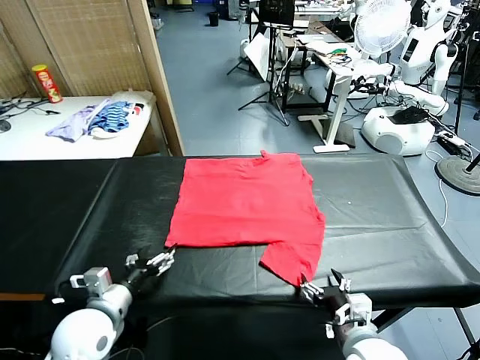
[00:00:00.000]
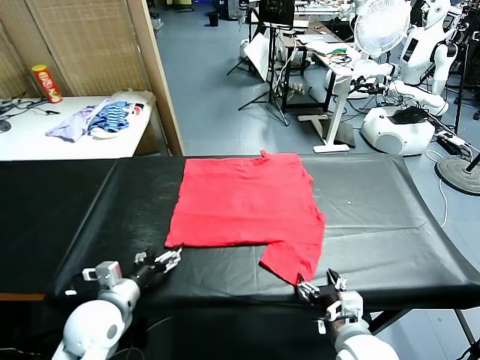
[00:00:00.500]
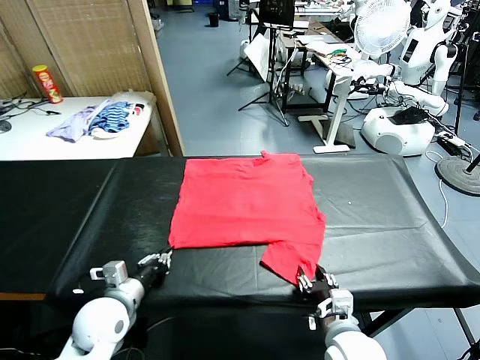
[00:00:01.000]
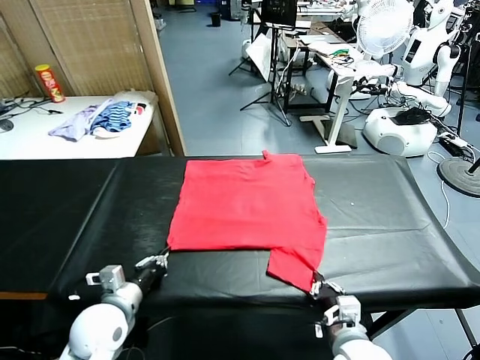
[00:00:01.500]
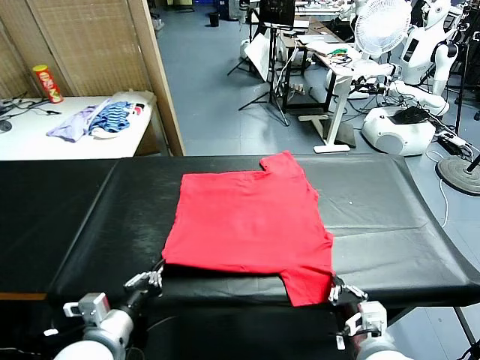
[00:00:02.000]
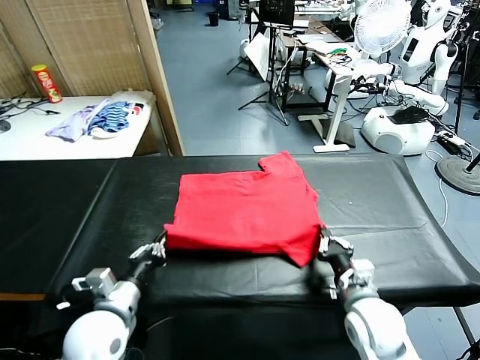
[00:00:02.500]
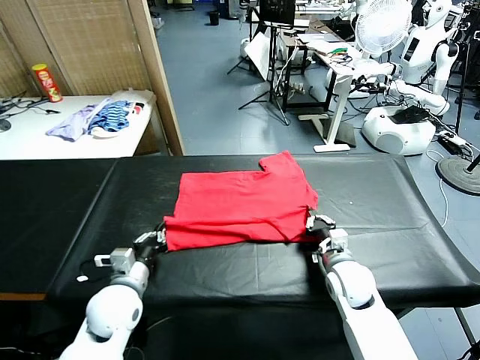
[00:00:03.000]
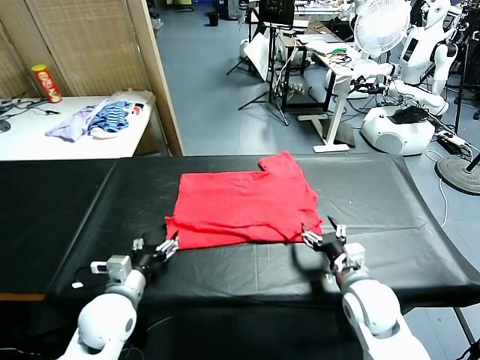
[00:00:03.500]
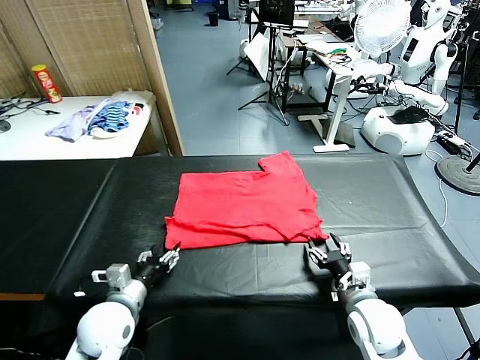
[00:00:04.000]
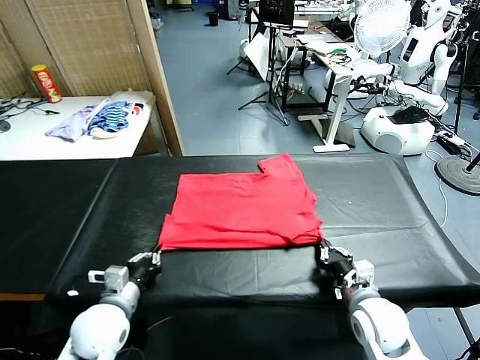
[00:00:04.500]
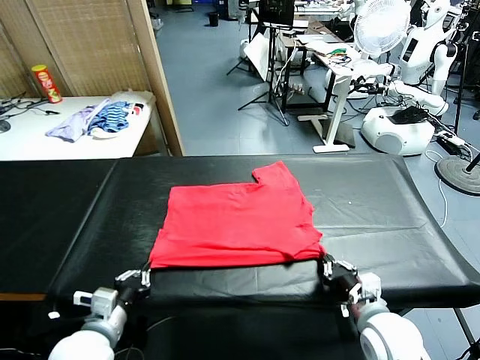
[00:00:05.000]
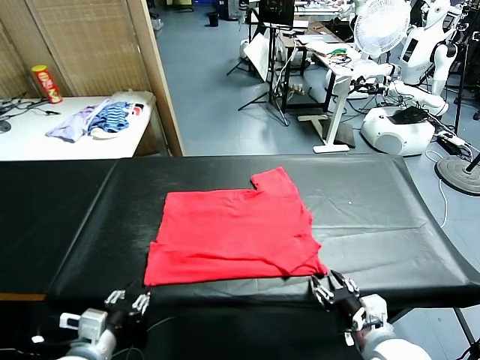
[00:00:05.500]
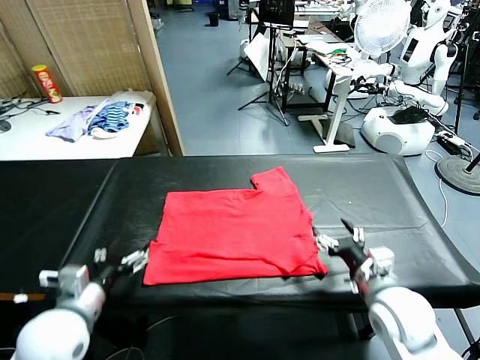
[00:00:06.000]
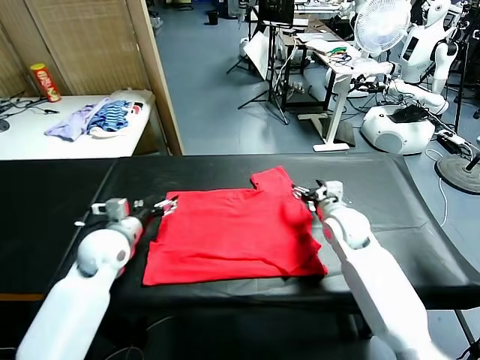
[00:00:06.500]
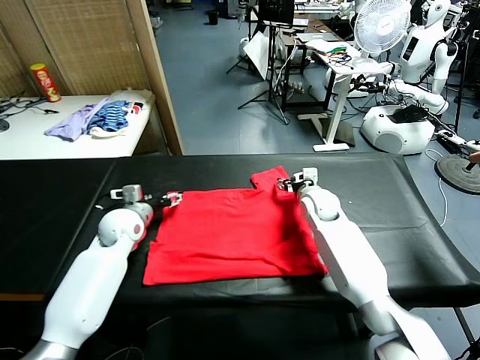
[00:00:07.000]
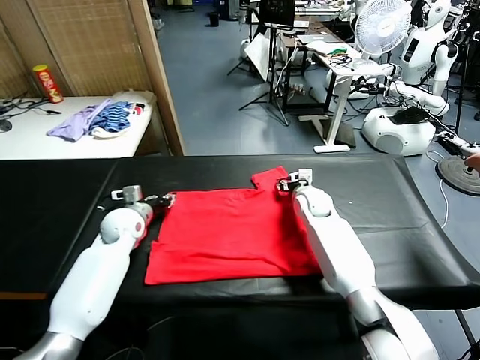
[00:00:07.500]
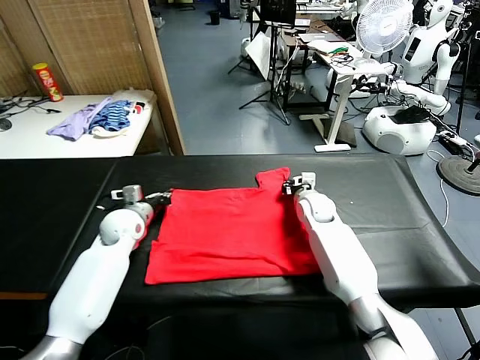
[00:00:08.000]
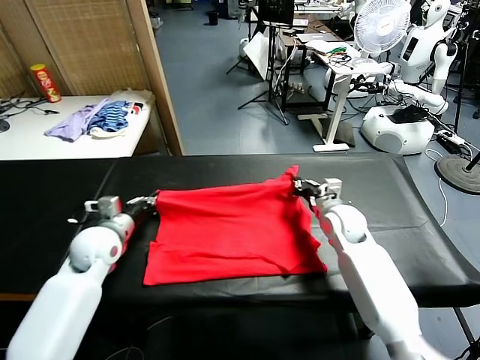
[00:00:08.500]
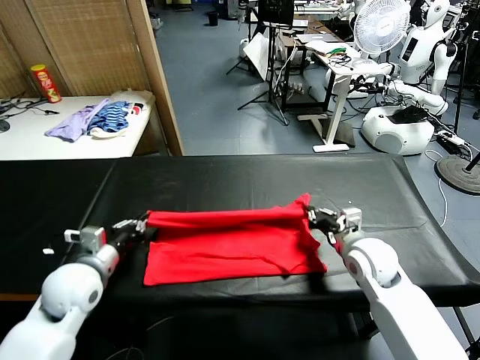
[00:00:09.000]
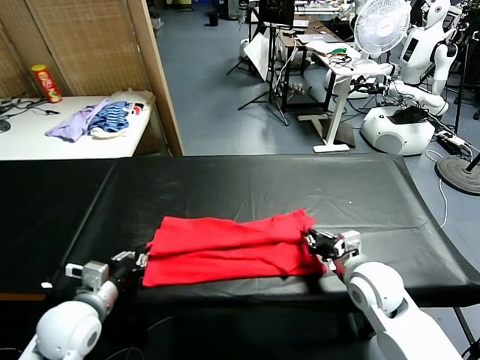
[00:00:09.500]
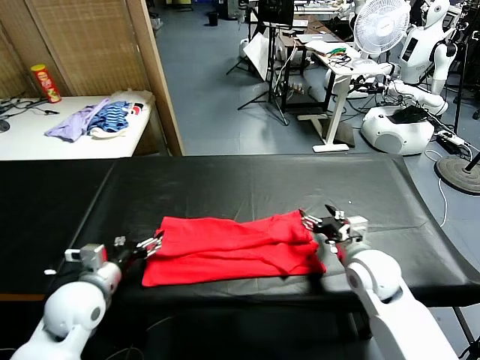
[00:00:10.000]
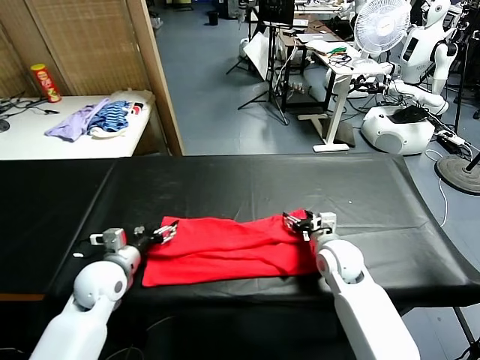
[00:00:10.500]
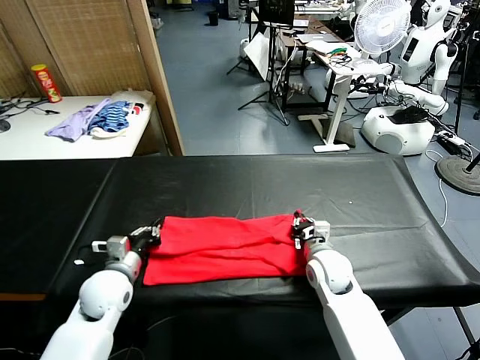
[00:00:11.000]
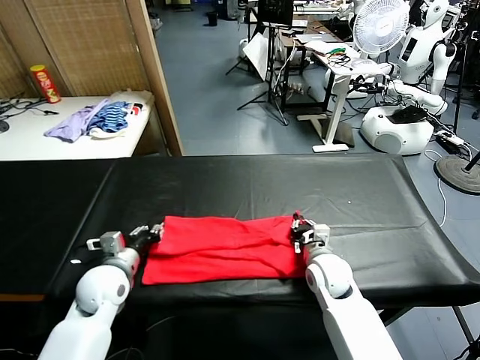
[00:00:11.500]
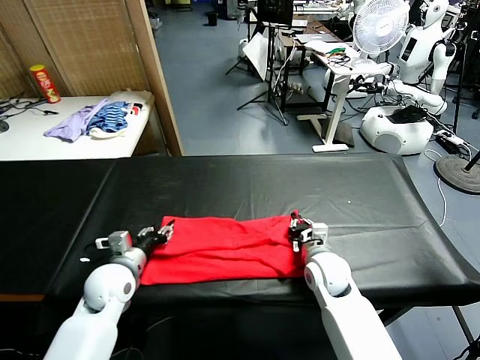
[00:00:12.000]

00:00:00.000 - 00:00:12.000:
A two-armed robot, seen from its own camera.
Task of the whole recording: fold and organize the clothes.
Step, 00:00:00.000 - 00:00:01.500: use both grippers simultaneously to clamp the lower edge of the clothing fabric.
Step, 00:00:02.000 - 00:00:03.500: use both grippers to drag the lower edge of the fabric forward and fold it over the upper edge.
Step, 00:00:04.000 - 00:00:05.500: Drag the clothes downward with both gripper.
Step, 00:00:06.000 - 00:00:08.000: use both grippers simultaneously to clamp the upper edge of the clothing fabric.
Step, 00:00:08.500 - 00:00:09.500: use both grippers to drag the upper edge of the fabric backward and fold it over the lower edge.
00:00:02.000 - 00:00:04.000: The left gripper shifts approximately 10 cm forward and downward, and opens its fingers. Meanwhile the right gripper opens and closes again.
00:00:04.000 - 00:00:06.000: The left gripper is displaced upward by roughly 10 cm, goes backward and returns, about 10 cm each way, and opens up, while the right gripper travels forward and upward by approximately 15 cm, and opens its fingers.
00:00:06.000 - 00:00:08.000: Both grippers travel together forward, about 20 cm. The right gripper closes its fingers, while the left gripper closes its fingers.
00:00:08.000 - 00:00:10.000: Both grippers travel together backward, roughly 15 cm. The left gripper opens, while the right gripper opens its fingers.
00:00:10.000 - 00:00:12.000: The left gripper shifts by about 5 cm, and closes up. Meanwhile the right gripper is displaced to the left by roughly 5 cm, and closes.

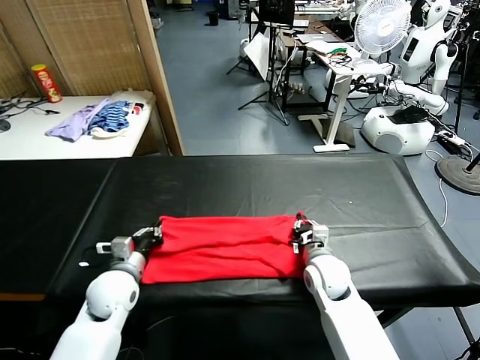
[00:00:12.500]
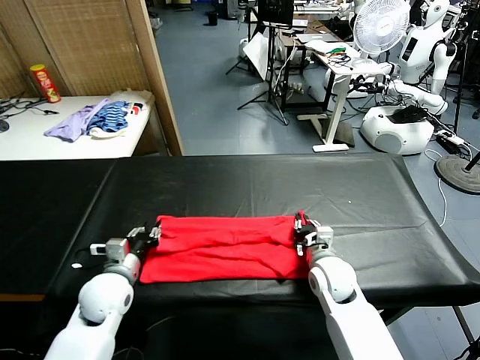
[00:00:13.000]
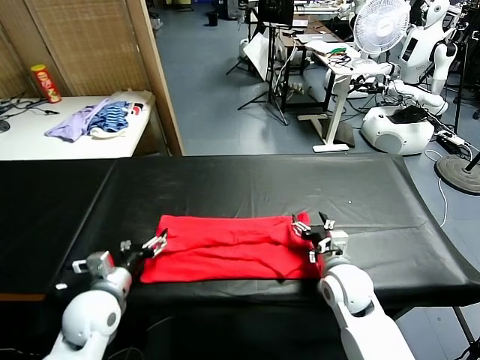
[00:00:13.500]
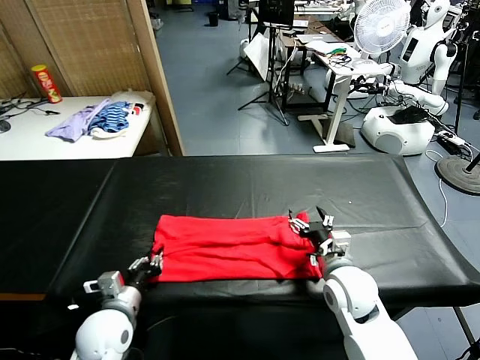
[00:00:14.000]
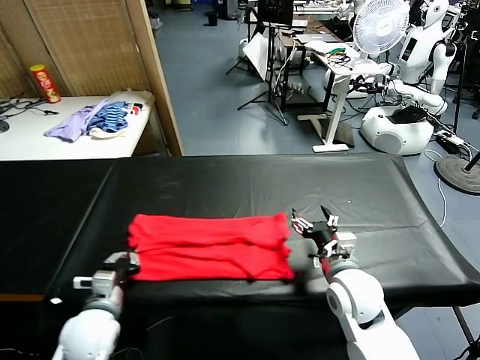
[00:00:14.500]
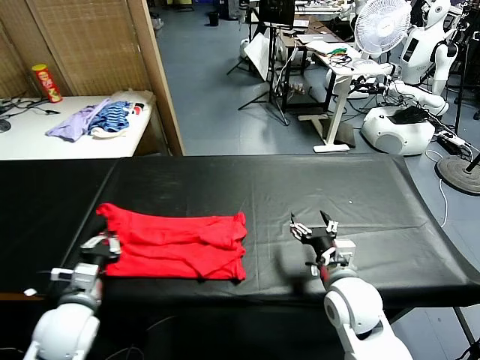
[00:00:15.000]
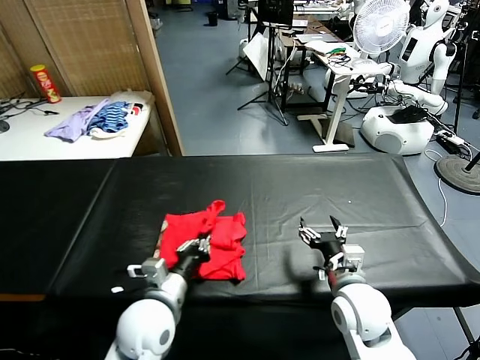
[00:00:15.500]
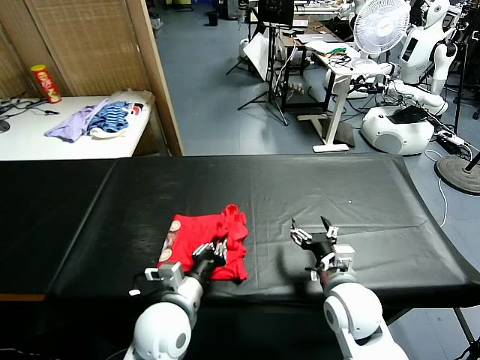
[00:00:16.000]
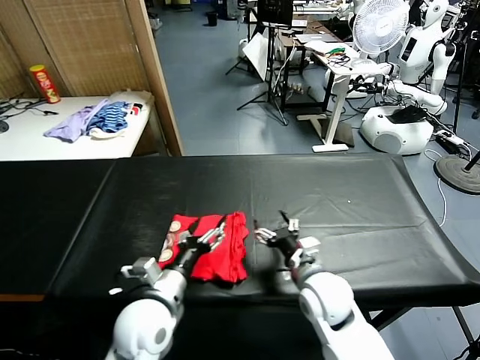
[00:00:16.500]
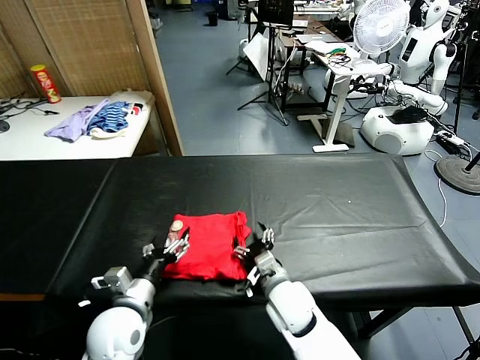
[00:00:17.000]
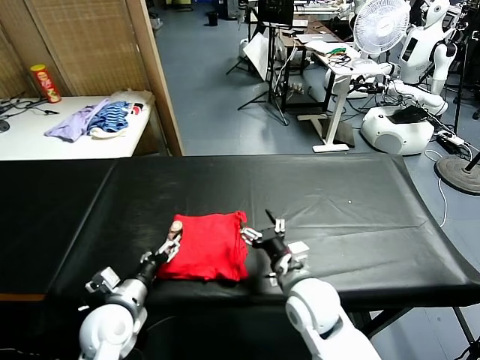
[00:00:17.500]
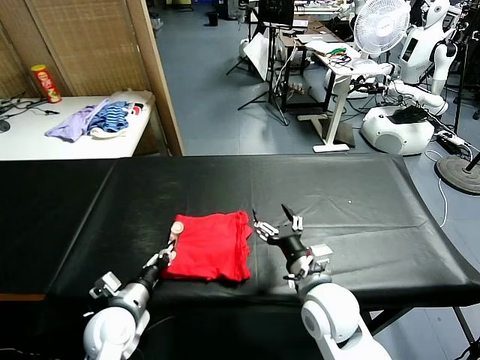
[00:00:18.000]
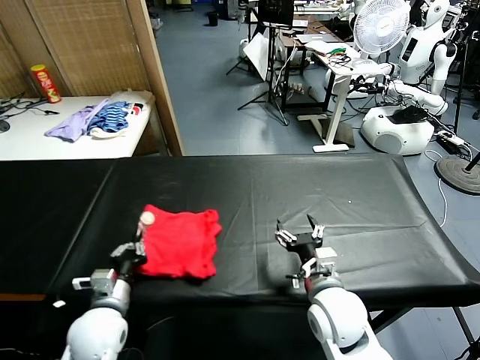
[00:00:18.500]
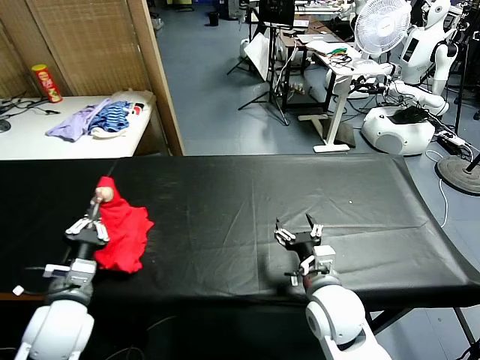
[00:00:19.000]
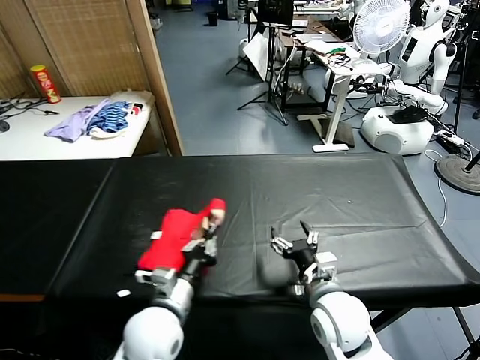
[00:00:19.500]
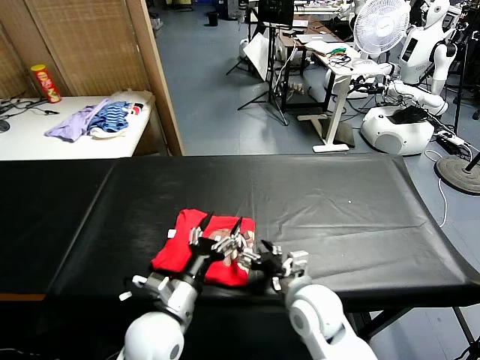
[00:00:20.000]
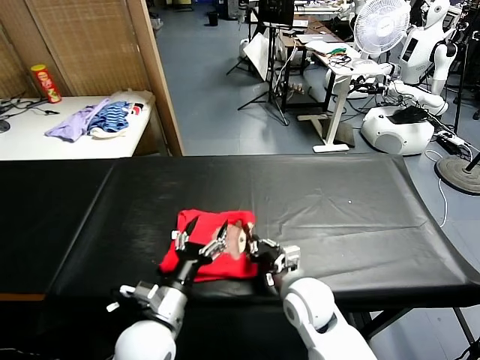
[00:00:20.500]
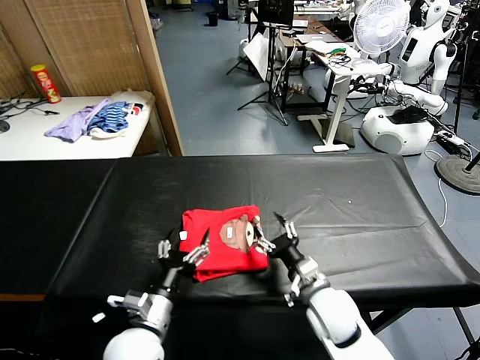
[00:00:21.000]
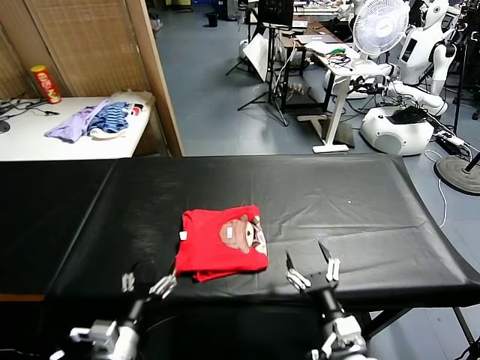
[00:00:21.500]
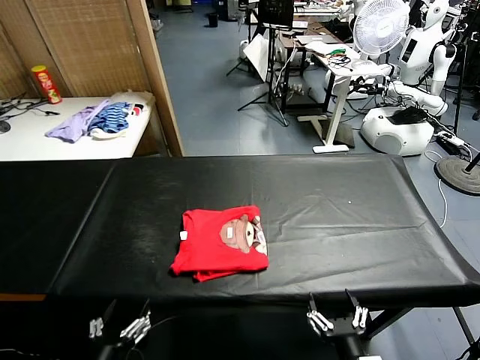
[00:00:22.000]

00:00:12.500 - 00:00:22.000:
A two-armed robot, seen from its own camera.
Task of the whole recording: fold and organize the clothes.
Step, 00:00:12.500 - 00:00:14.500: use the left gripper to clamp the left edge of the fabric.
Step, 00:00:15.000 - 00:00:16.000: use the left gripper to drag the left edge of the fabric to the left and folds it over the right edge.
Step, 00:00:16.500 - 00:00:19.500: Flip the folded clothes over with left gripper.
Step, 00:00:20.000 - 00:00:21.000: Drag the clothes to the center of the table.
00:00:12.500 - 00:00:14.500: The left gripper shifts some 10 cm backward, and opens and closes again, while the right gripper is displaced upward and backward by approximately 10 cm, and opens its fingers.
00:00:14.500 - 00:00:16.500: The left gripper shifts some 15 cm to the right and upward, and opens. The right gripper shifts some 5 cm to the left.
00:00:16.500 - 00:00:18.000: The left gripper travels to the left and downward by some 15 cm, and closes. The right gripper ends up roughly 5 cm from where it was.
00:00:18.000 - 00:00:20.000: The left gripper goes some 15 cm to the right and upward, and opens its fingers.
00:00:20.000 - 00:00:22.000: The left gripper shifts about 20 cm backward and to the left. Meanwhile the right gripper goes approximately 20 cm backward, and closes and opens again.
